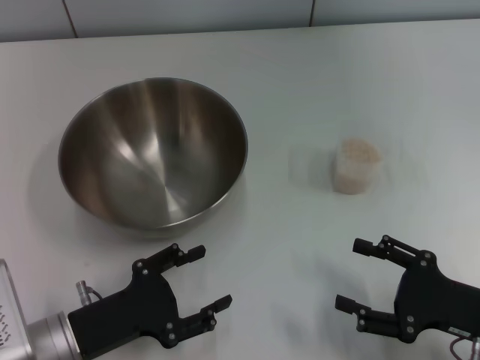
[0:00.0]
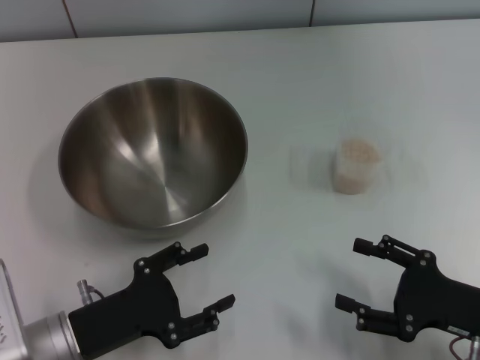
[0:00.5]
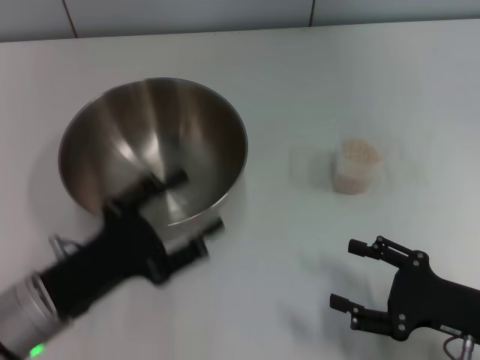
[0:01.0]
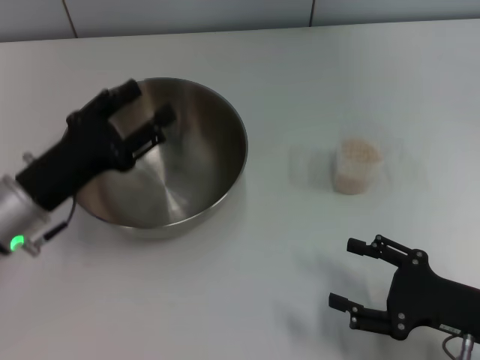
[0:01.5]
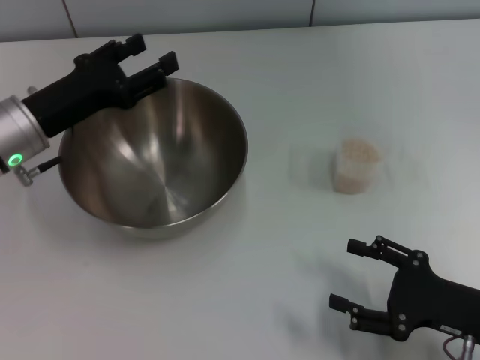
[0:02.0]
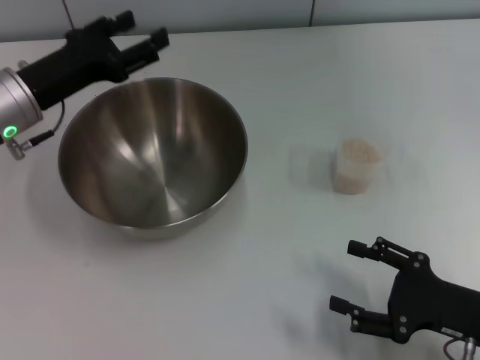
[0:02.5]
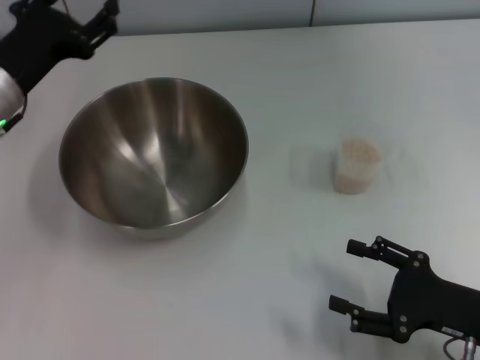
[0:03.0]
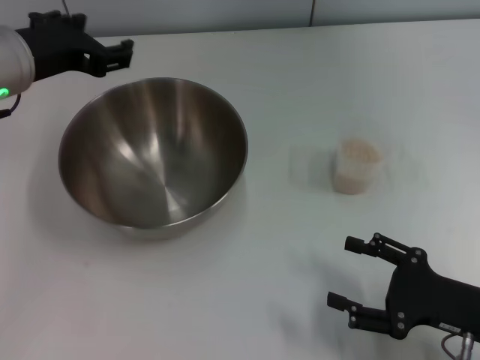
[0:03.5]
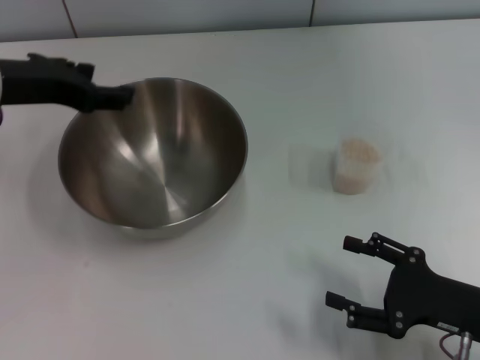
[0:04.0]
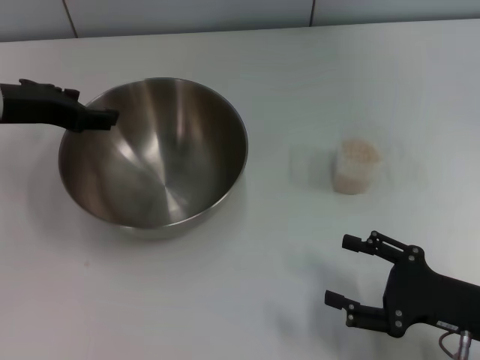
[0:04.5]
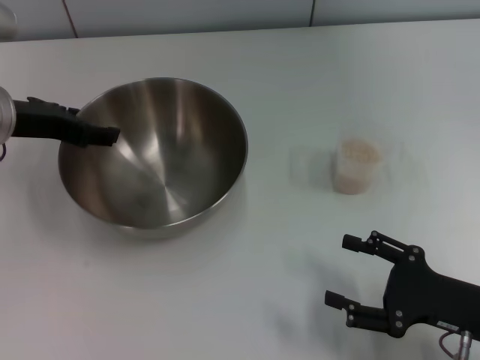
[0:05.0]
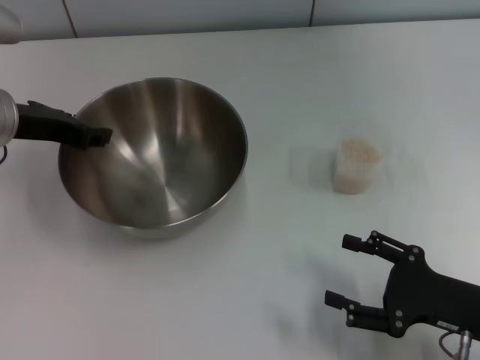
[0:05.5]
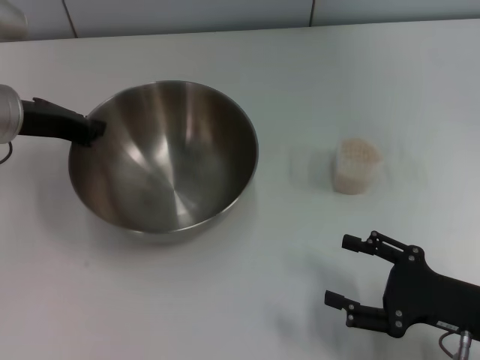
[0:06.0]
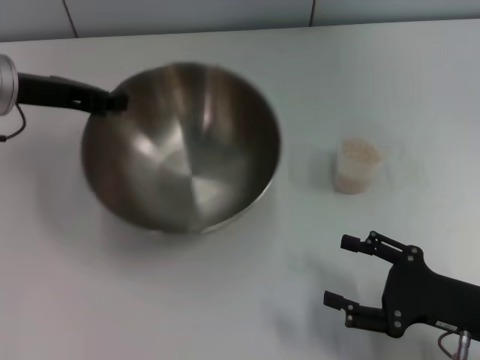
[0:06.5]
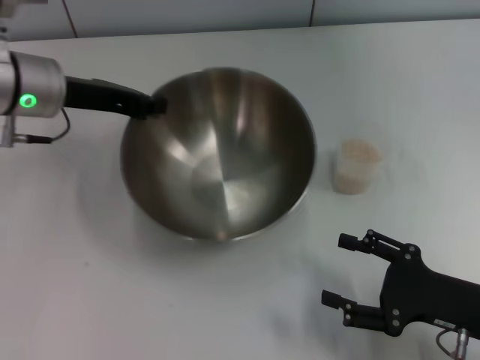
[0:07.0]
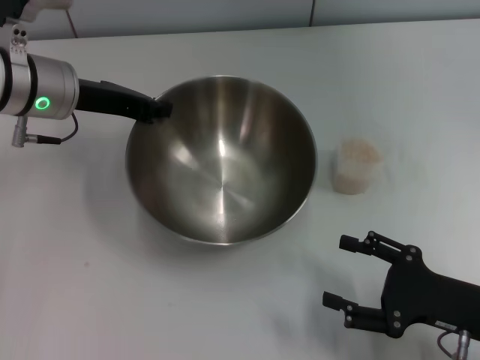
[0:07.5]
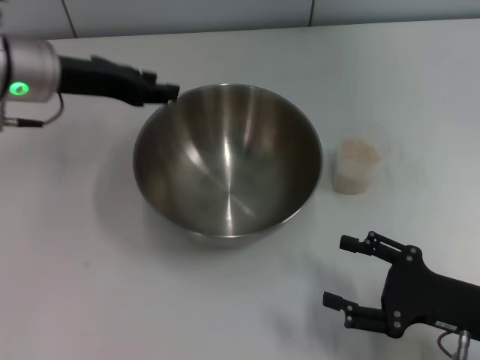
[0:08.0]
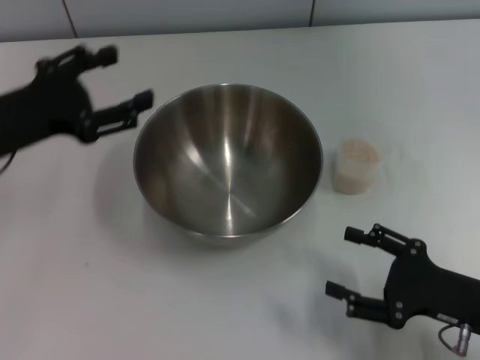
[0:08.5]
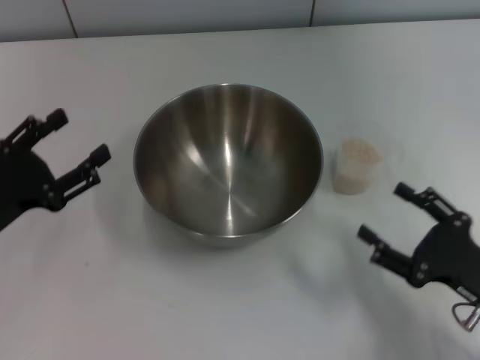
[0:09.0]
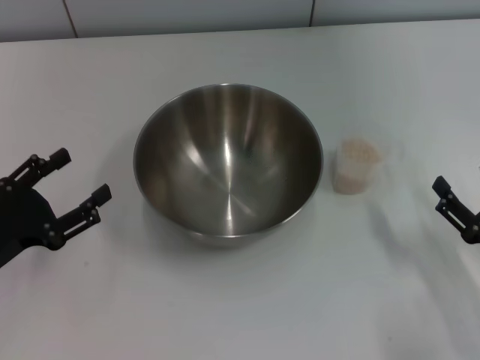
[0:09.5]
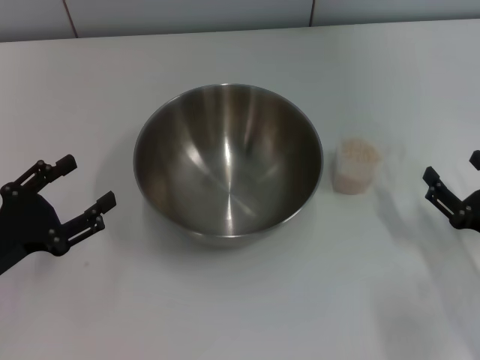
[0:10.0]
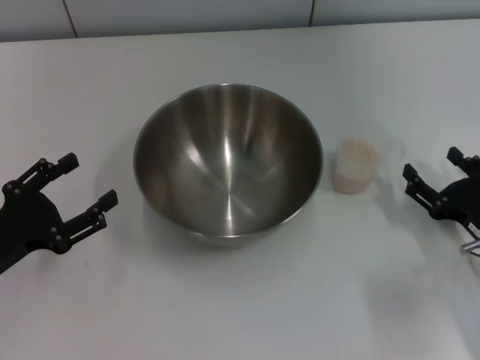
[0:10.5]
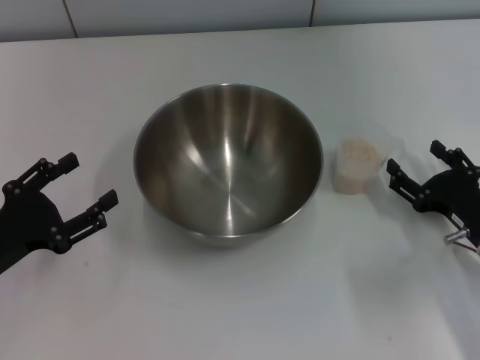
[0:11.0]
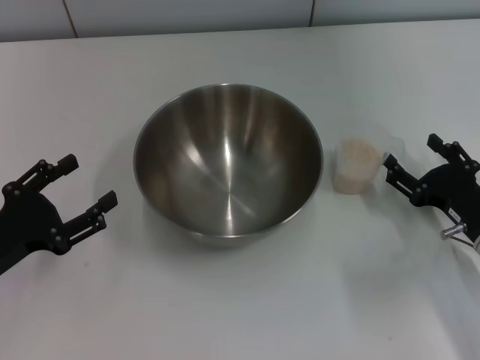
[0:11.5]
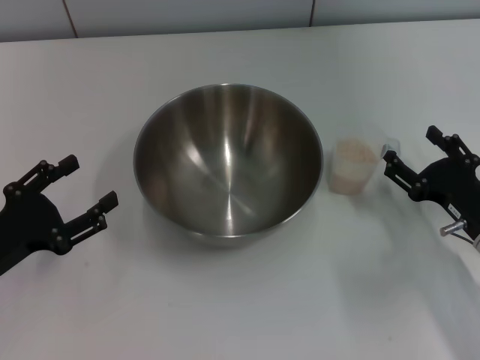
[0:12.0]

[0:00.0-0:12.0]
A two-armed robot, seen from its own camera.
Task of the whole recording: Place the bowl in the middle of the table with one hand and pour the rice from the grain cup into it with the other hand.
Step, 0:00.0 to 0:06.5: Pick up the bowl with the left gripper.
Step, 0:07.0 to 0:08.0: Place the bowl in the center of view with the left gripper.
0:00.0 to 0:02.0: The left gripper shifts approximately 20 cm forward and upward.
0:02.0 to 0:04.0: The left gripper is displaced upward by some 10 cm.
0:04.0 to 0:06.0: The left gripper is displaced downward by roughly 5 cm, and closes its fingers.
0:08.0 to 0:10.0: The left gripper moves backward, downward and to the left, approximately 25 cm, and opens.
0:10.0 to 0:12.0: The right gripper ends up some 5 cm from where it was.

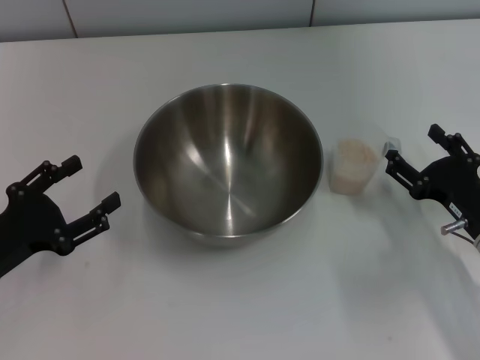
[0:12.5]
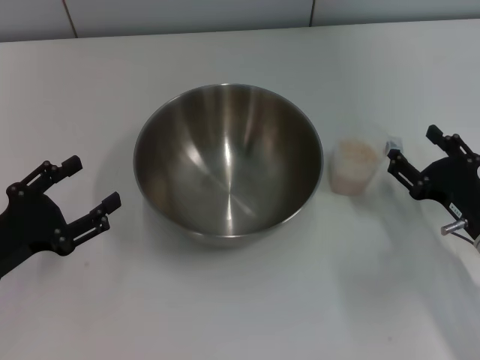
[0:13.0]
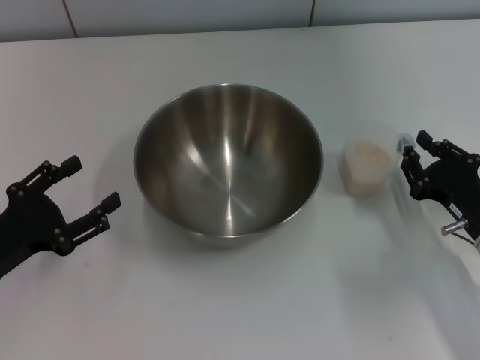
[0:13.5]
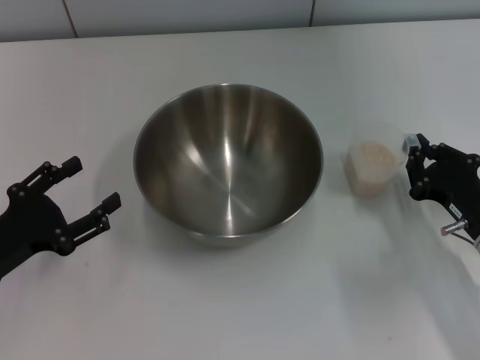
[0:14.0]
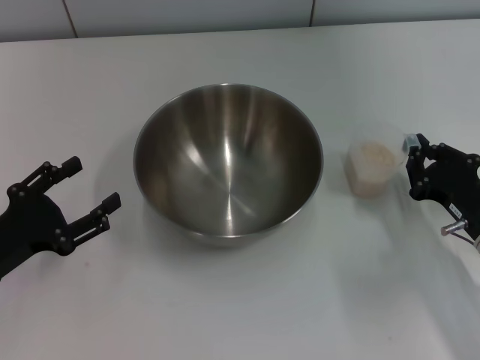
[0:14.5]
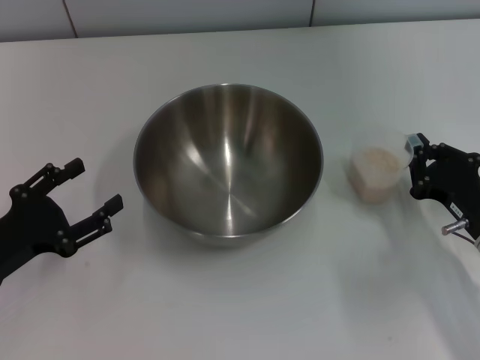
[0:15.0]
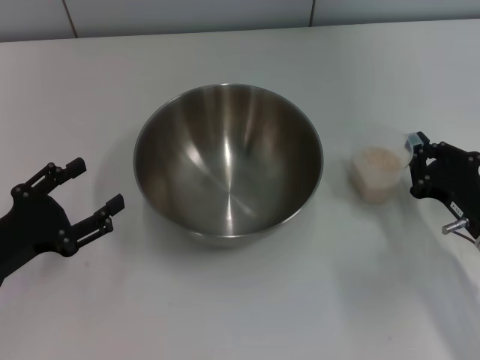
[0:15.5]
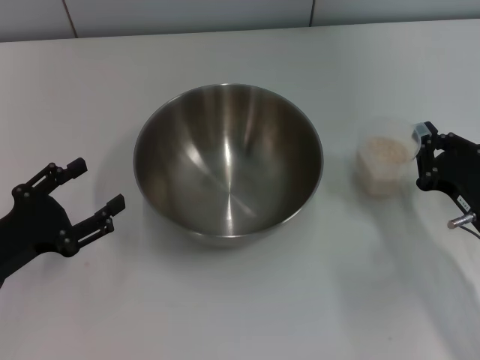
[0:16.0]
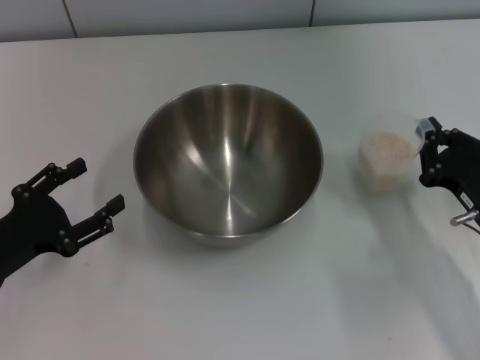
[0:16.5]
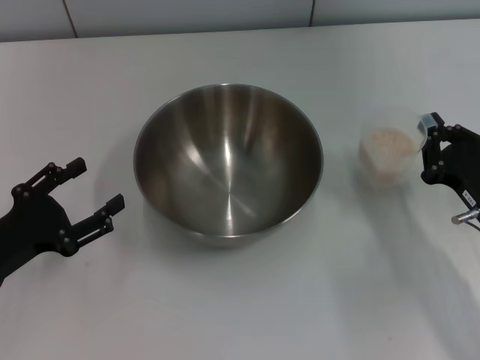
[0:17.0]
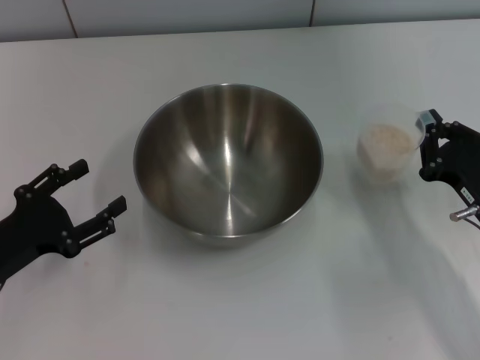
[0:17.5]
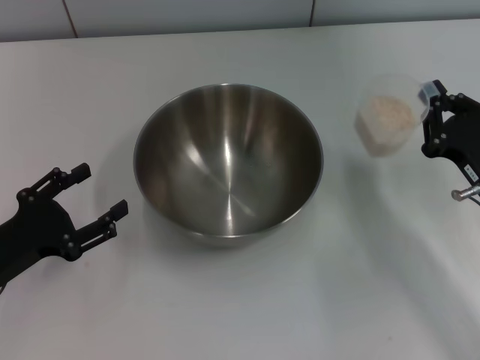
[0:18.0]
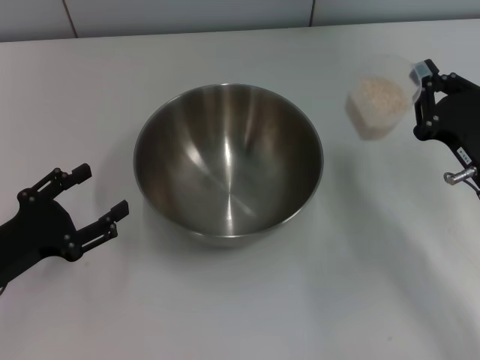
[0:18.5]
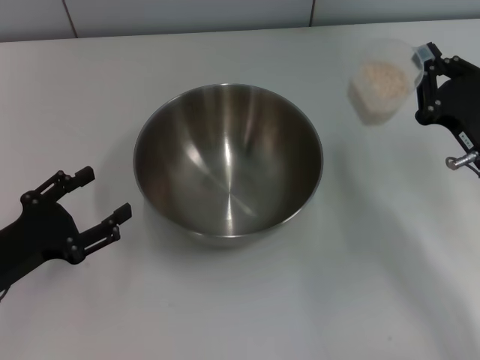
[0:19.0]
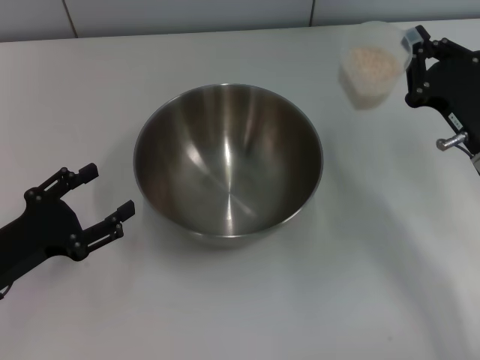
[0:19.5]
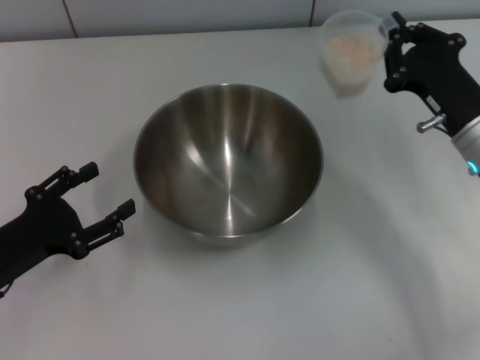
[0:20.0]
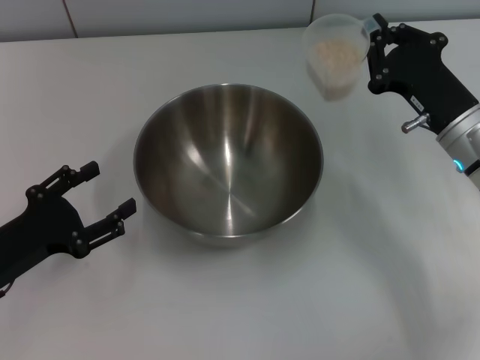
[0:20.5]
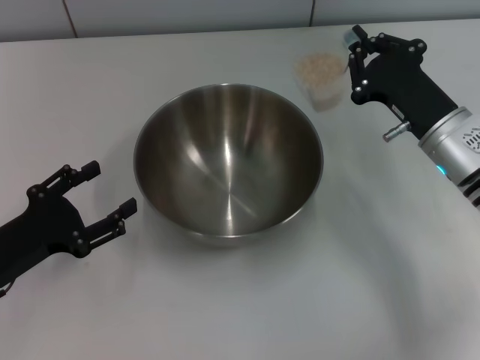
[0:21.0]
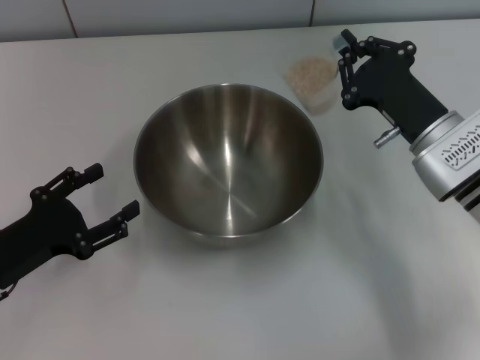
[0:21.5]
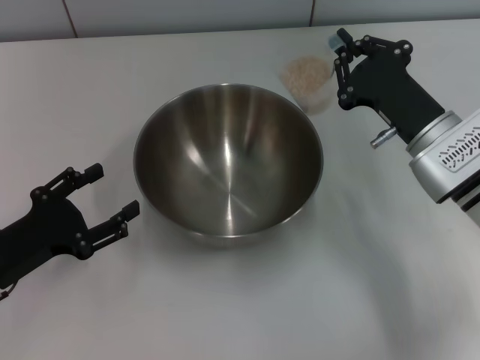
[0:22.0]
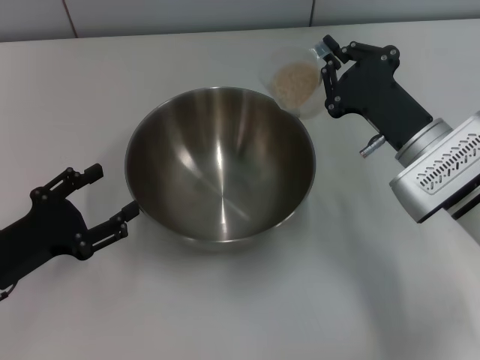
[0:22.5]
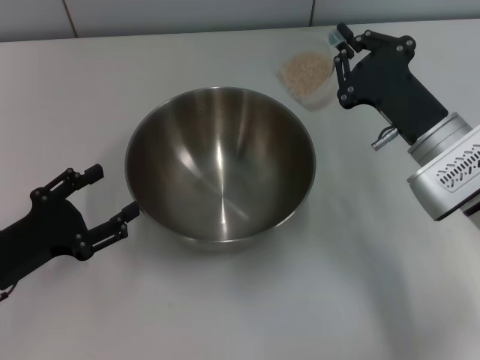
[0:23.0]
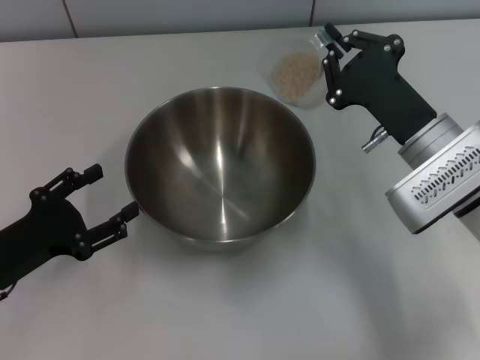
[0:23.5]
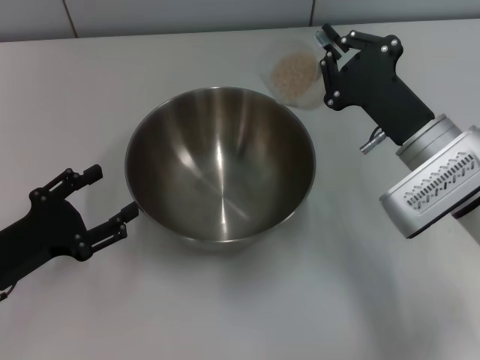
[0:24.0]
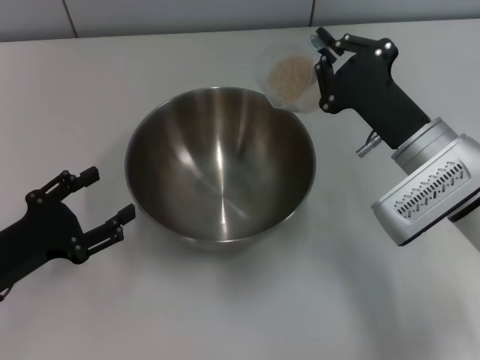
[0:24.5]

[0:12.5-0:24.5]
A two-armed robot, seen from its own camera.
Task of the whole recording: Place the bowl in the middle of the table with one hand and pour the rice from the grain cup into it with the other hand.
Step, 0:12.5 to 0:18.5: Pick up the cup with rice in it with the right gripper.
0:12.5 to 0:14.5: The right gripper closes its fingers.
0:14.5 to 0:18.5: The grippers move only a little.
0:18.5 to 0:20.5: The right gripper shifts roughly 5 cm forward.
0:20.5 to 0:22.5: The grippers move only a little.
0:22.5 to 0:24.5: There are only small adjustments of the grippers.

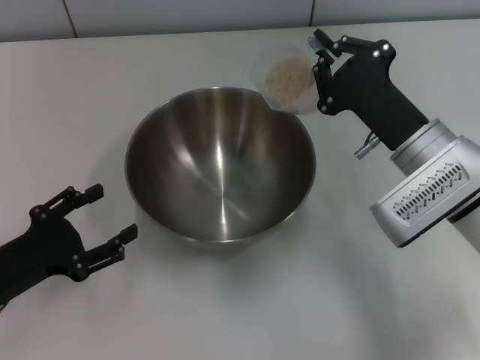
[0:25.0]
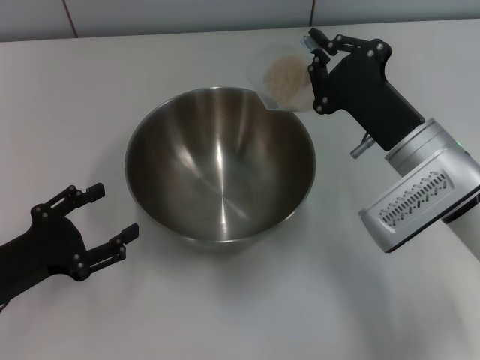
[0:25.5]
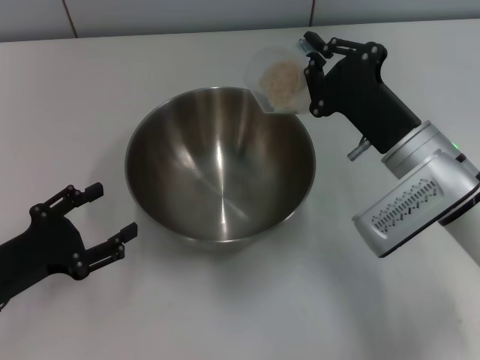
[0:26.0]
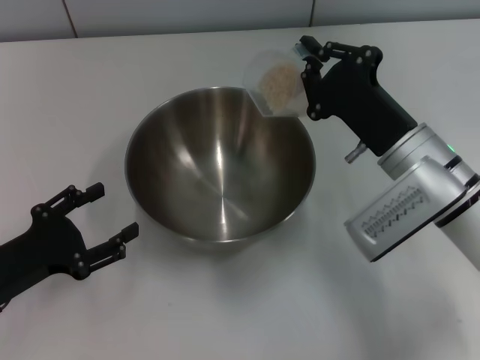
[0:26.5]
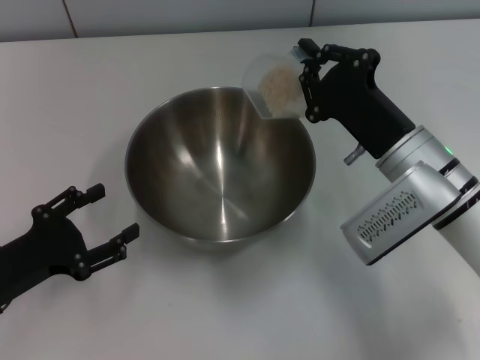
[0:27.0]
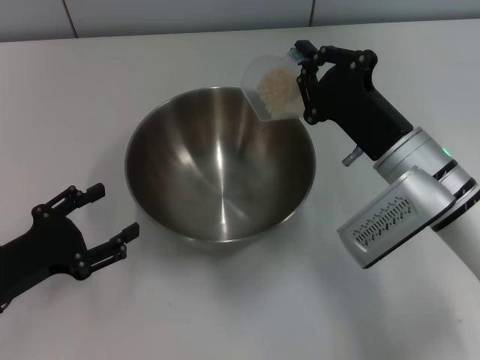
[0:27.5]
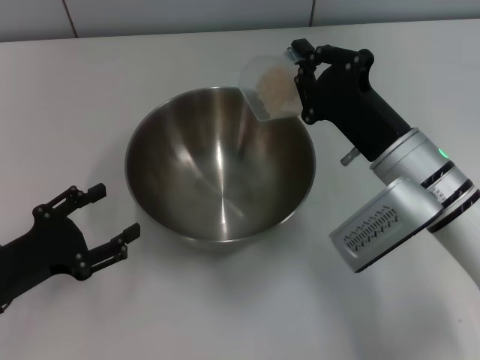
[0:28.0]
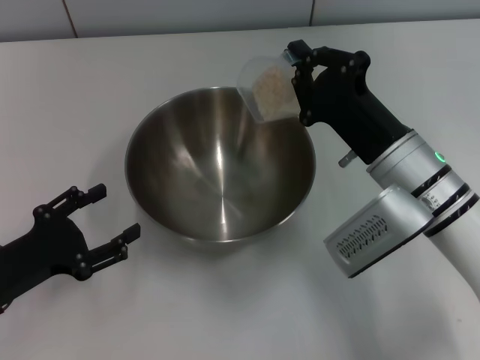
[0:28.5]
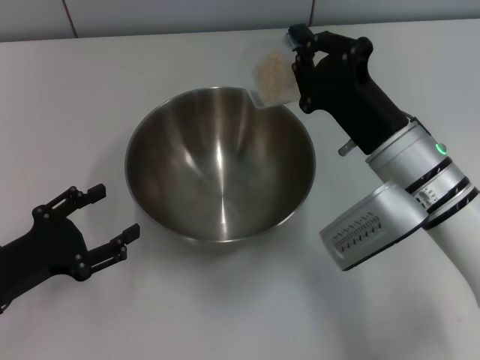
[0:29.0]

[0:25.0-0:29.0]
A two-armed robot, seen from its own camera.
Task of the whole recording: Place the bowl in the middle of the table with one hand and pour the rice from the grain cup into it with the other hand.
0:25.0 to 0:27.0: The grippers move only a little.
0:27.0 to 0:29.0: The grippers make only small movements.
